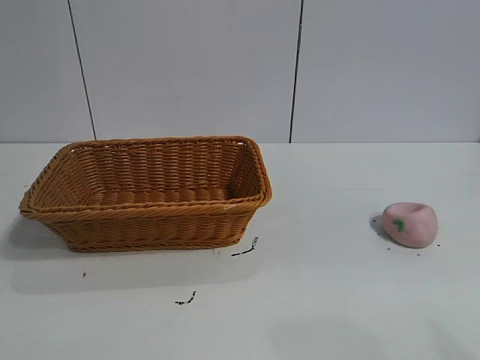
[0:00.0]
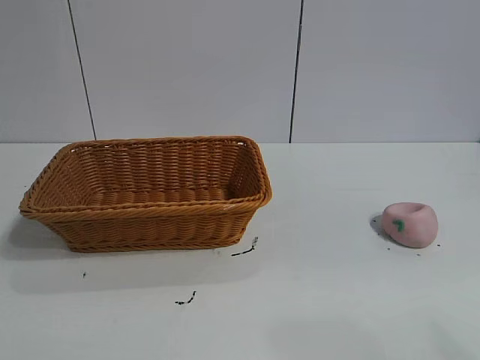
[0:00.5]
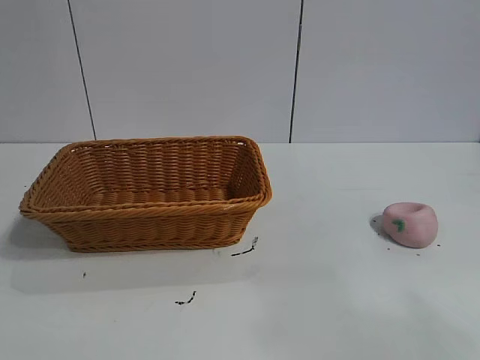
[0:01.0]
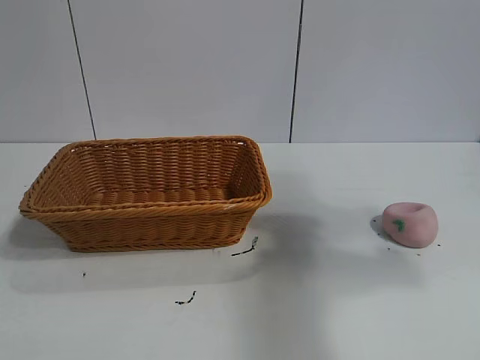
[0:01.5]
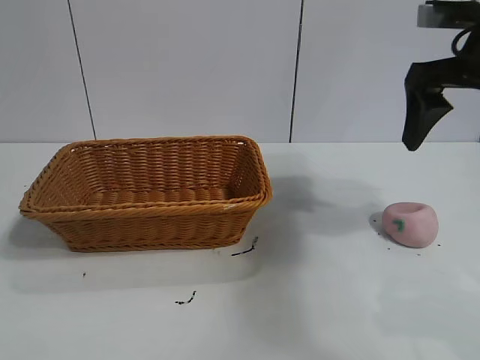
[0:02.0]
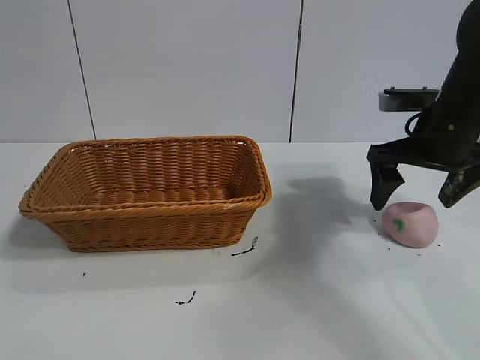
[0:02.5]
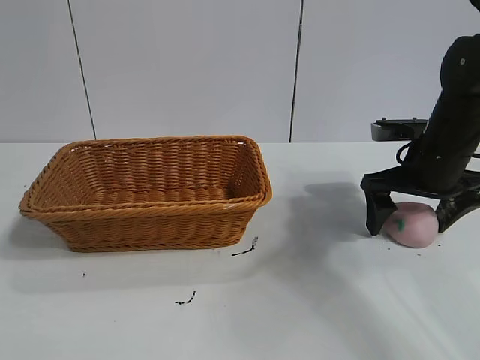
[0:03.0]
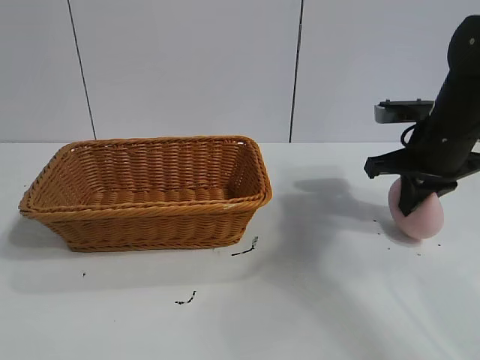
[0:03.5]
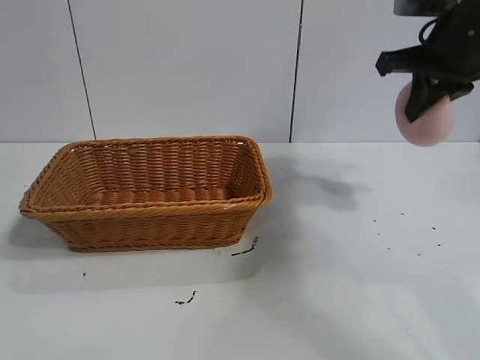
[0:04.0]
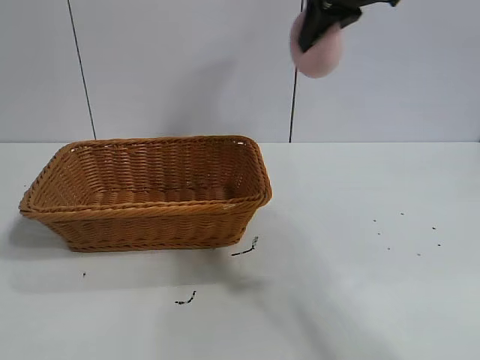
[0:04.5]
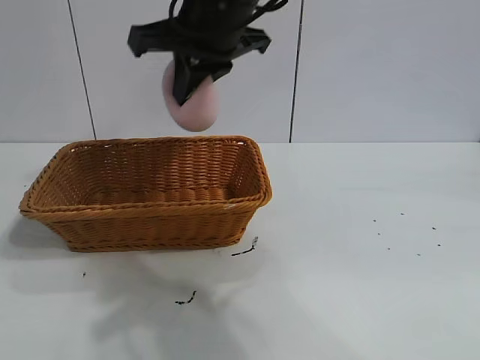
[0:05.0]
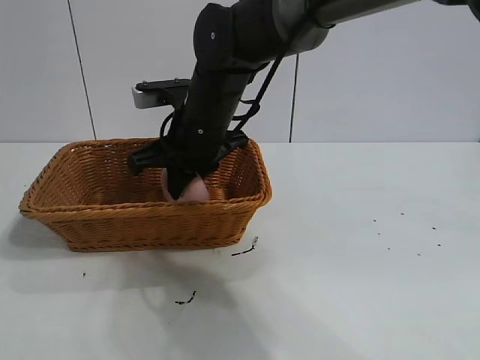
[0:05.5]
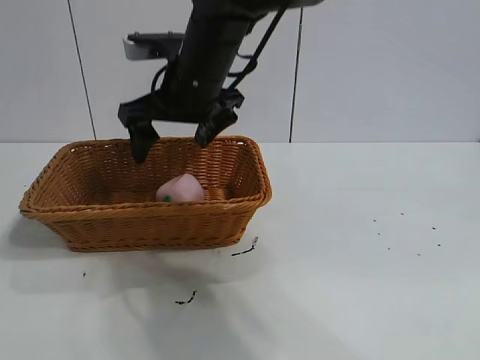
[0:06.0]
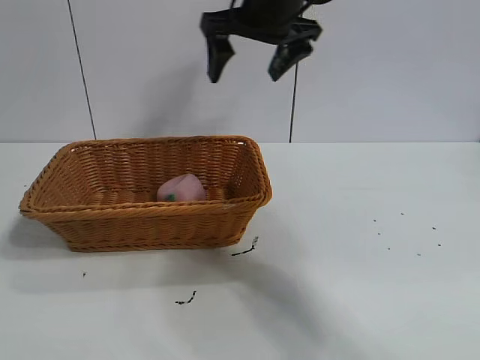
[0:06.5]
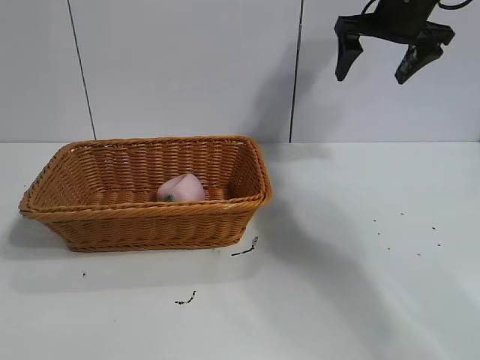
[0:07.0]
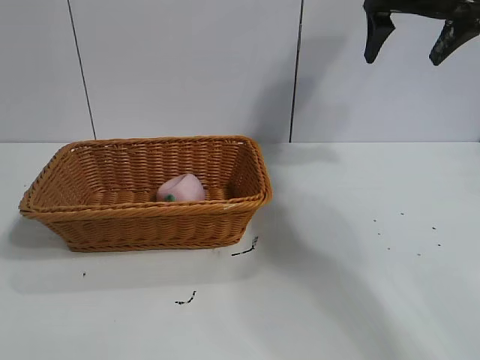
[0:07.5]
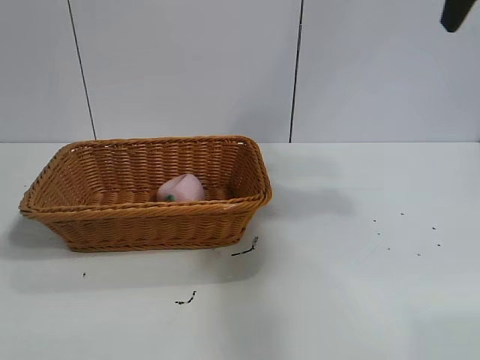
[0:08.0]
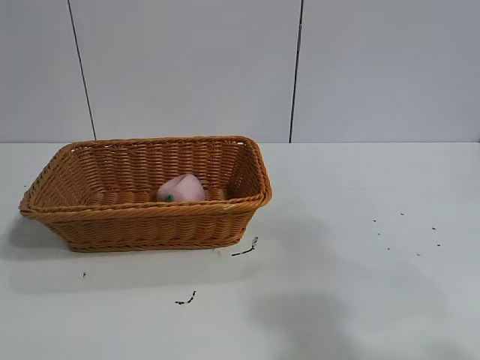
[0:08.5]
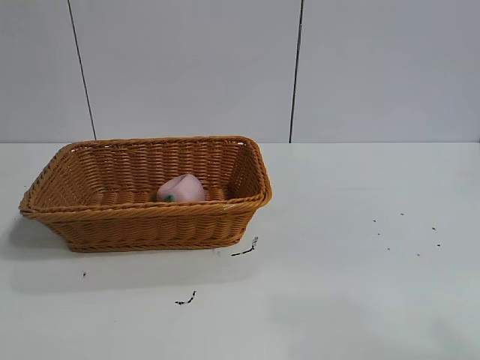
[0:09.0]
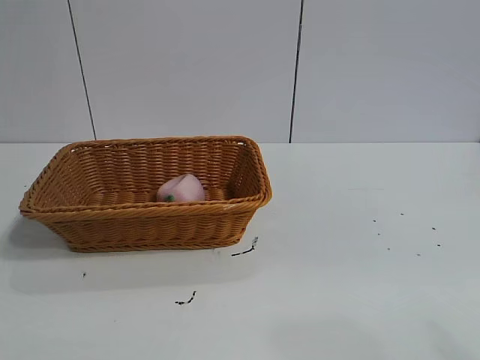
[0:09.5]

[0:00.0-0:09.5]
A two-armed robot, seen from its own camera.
Task of the whole recording: pick up the peach and put it into the basket.
Step, 0:01.0 to 0:03.0: Grasp the peach with right gripper.
Step, 0:03.5 to 0:05.5: Place the peach in the basket with right gripper.

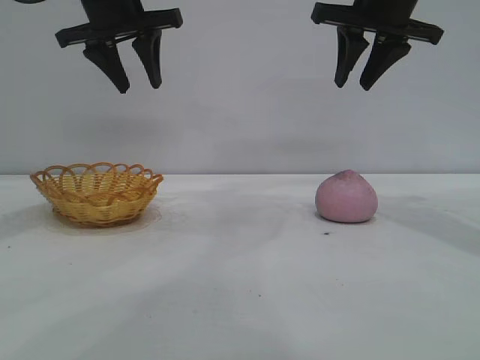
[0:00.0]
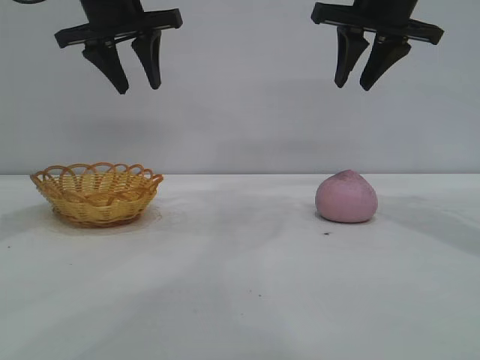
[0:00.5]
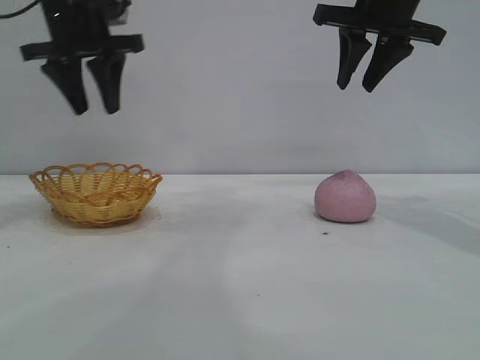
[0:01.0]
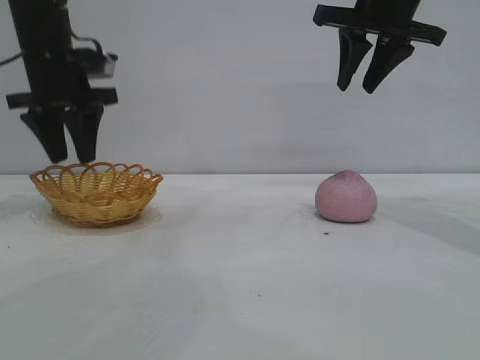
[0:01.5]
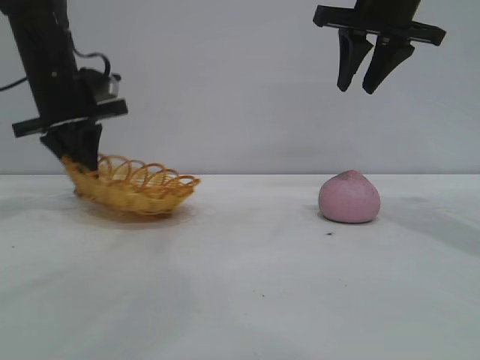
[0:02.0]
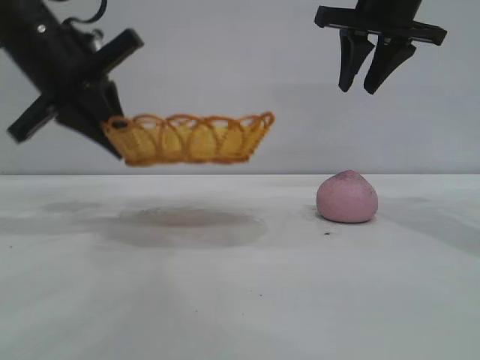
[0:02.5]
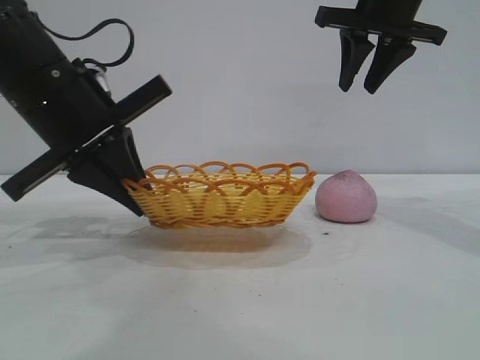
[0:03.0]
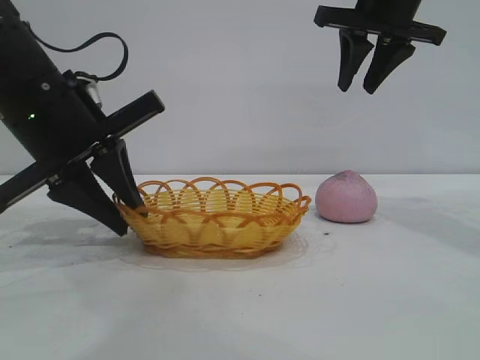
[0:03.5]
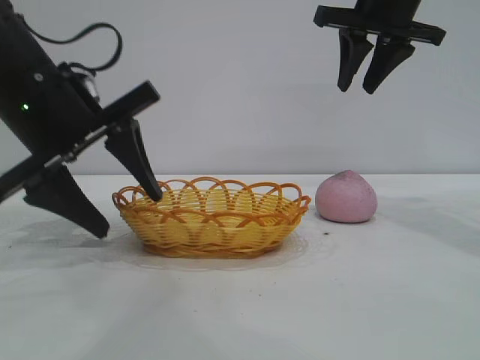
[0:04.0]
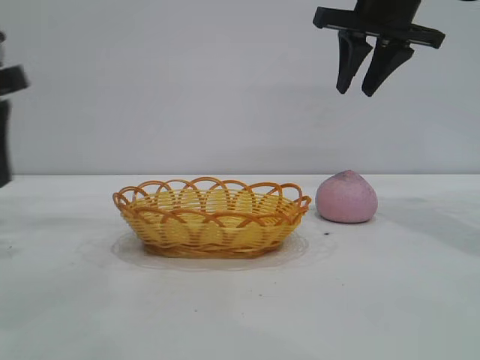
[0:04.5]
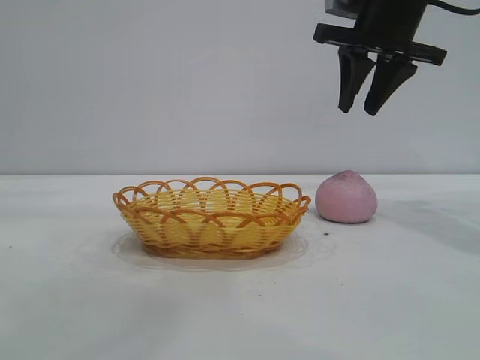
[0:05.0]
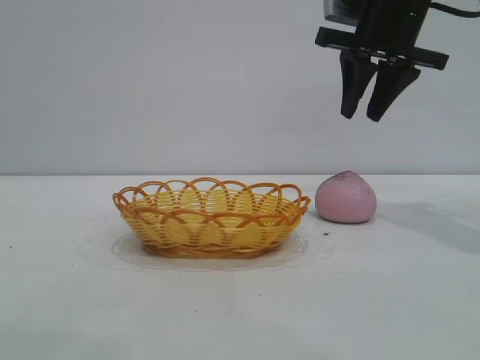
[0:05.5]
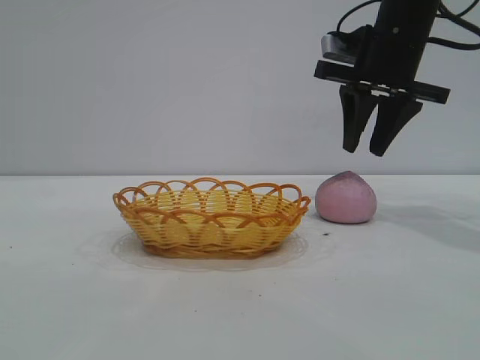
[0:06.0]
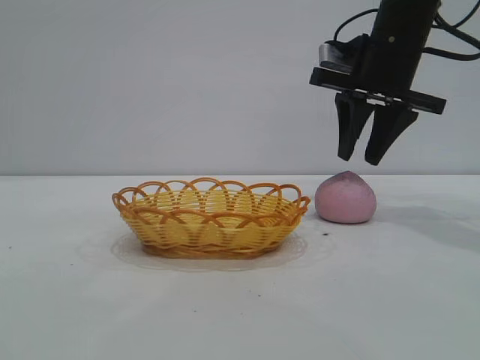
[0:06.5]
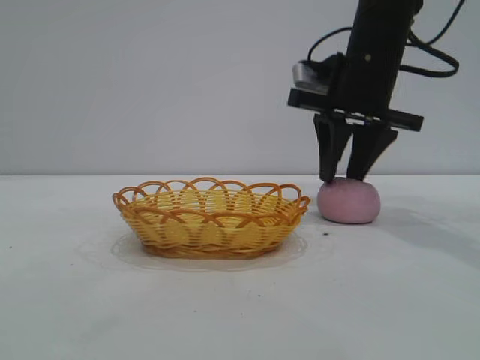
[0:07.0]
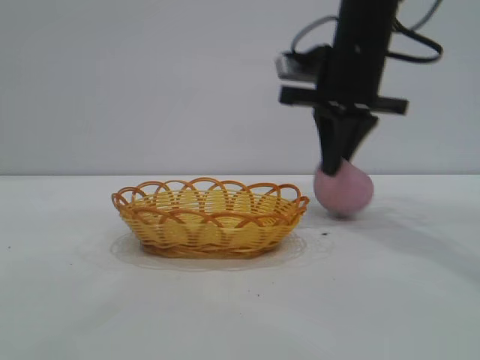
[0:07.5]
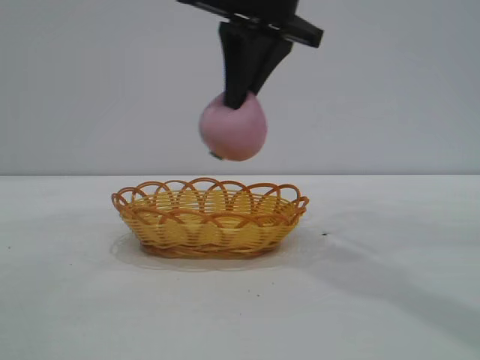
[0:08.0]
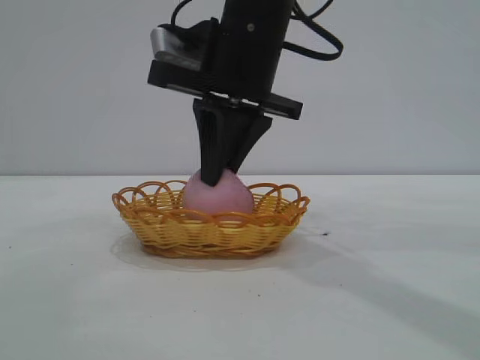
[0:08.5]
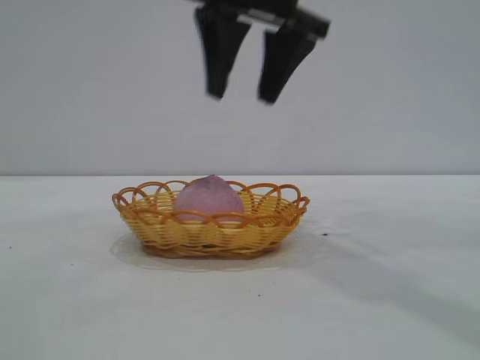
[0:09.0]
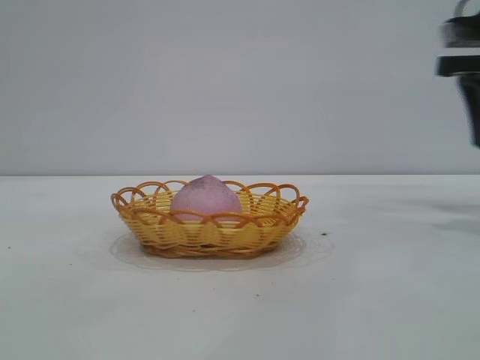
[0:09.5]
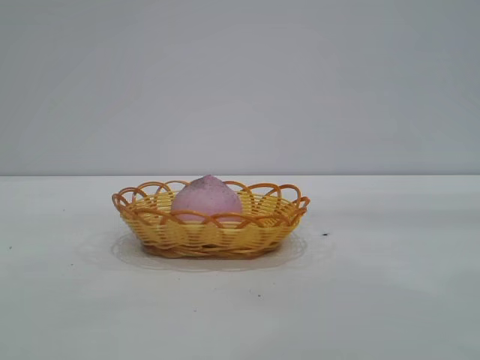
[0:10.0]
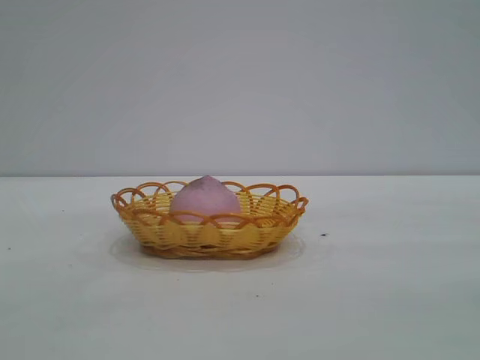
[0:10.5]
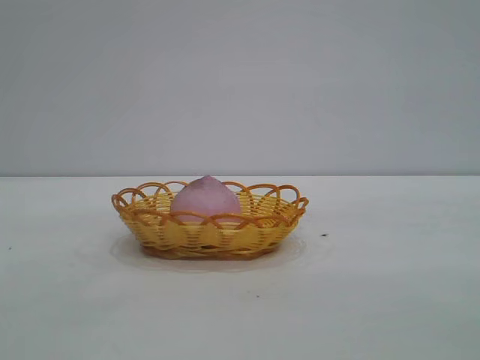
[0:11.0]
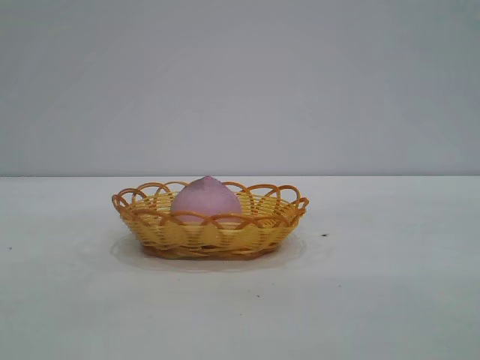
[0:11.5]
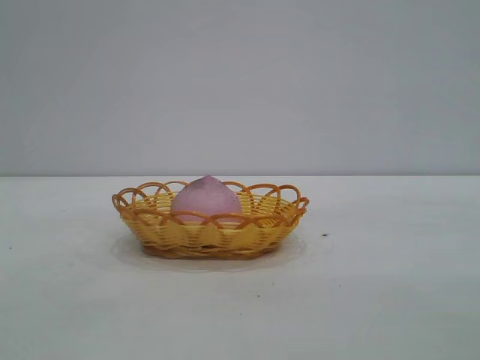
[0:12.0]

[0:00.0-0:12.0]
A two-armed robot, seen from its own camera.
Task of the whole recording: pick up the peach and put it into the basket.
Step, 0:00.0 to 0:04.0: Move the basket to the center of view.
Step, 0:04.5 to 0:07.5: Pick up the peach.
Step, 0:08.0 to 0:09.0: place the peach into the basket.
